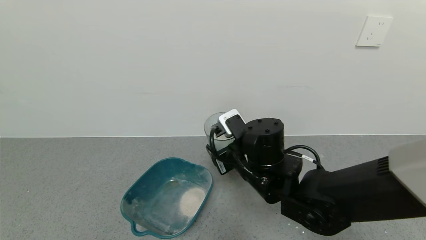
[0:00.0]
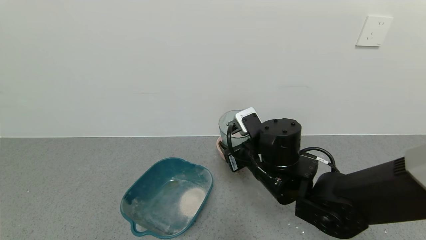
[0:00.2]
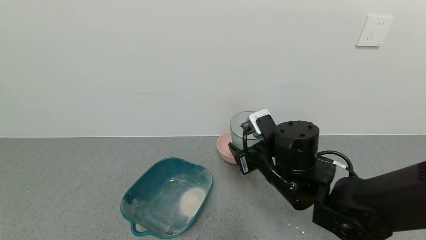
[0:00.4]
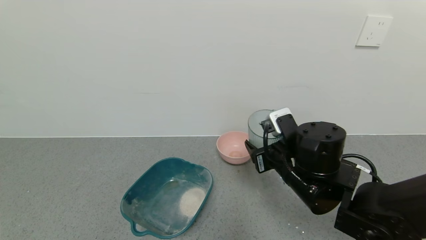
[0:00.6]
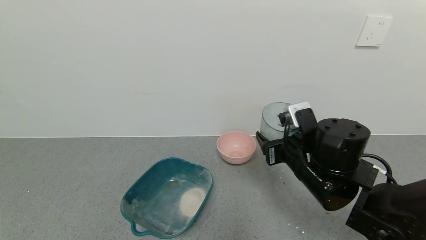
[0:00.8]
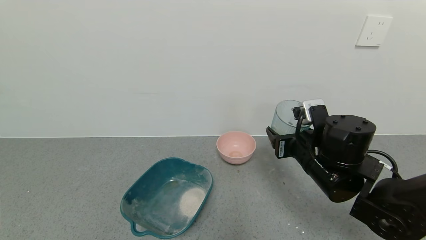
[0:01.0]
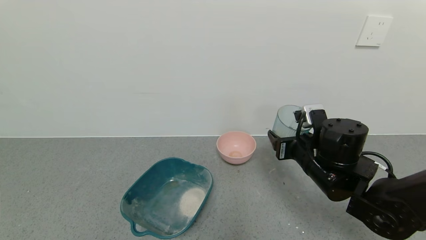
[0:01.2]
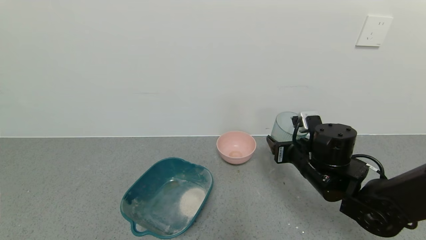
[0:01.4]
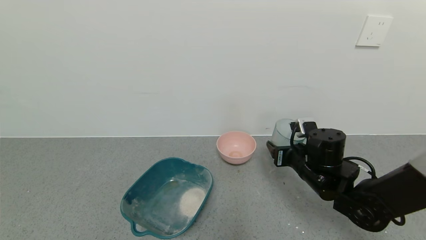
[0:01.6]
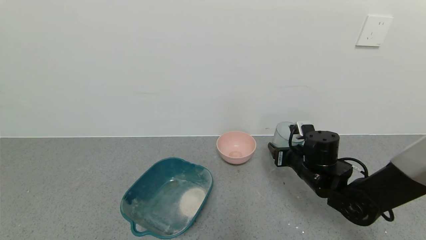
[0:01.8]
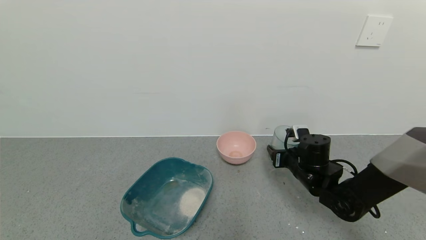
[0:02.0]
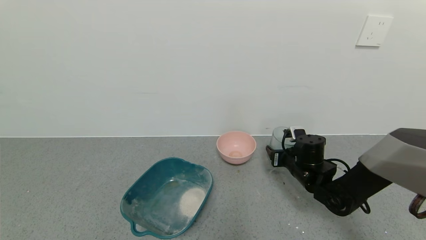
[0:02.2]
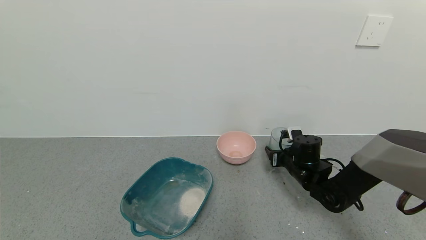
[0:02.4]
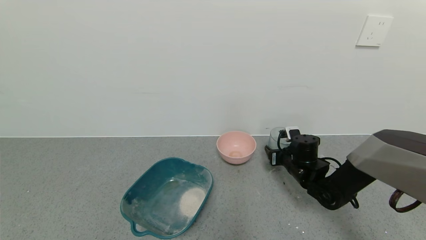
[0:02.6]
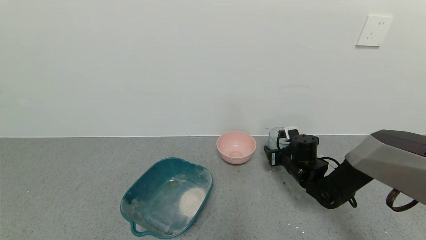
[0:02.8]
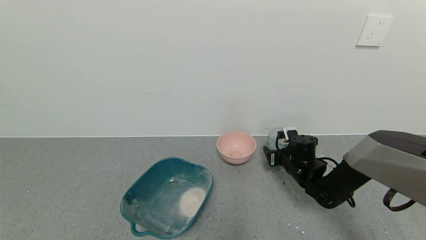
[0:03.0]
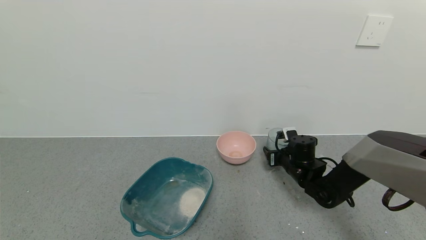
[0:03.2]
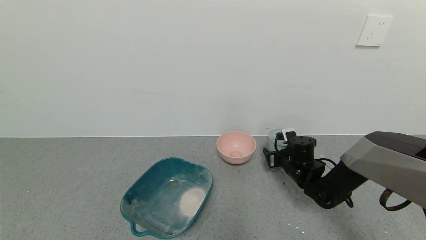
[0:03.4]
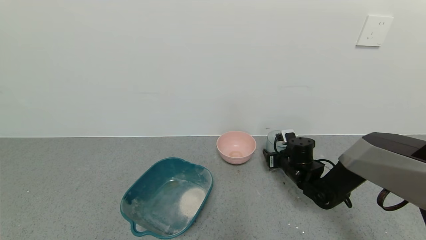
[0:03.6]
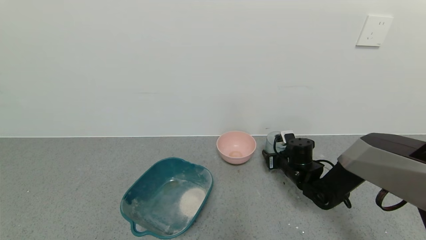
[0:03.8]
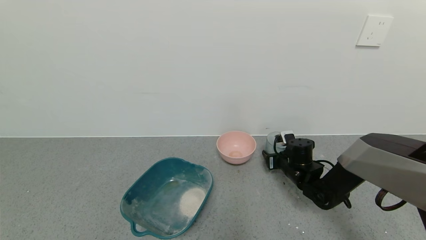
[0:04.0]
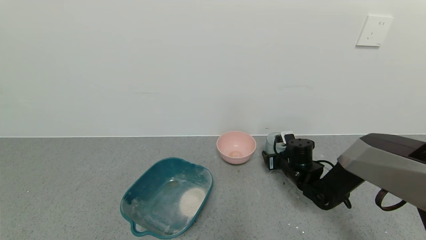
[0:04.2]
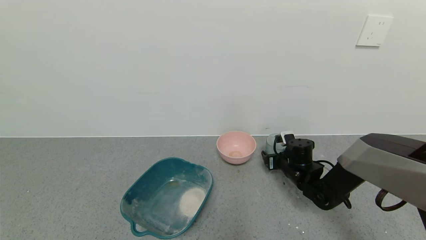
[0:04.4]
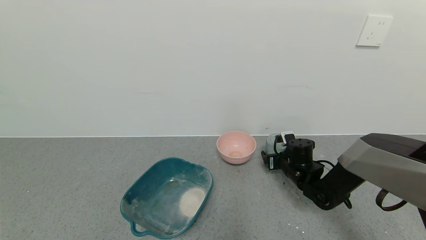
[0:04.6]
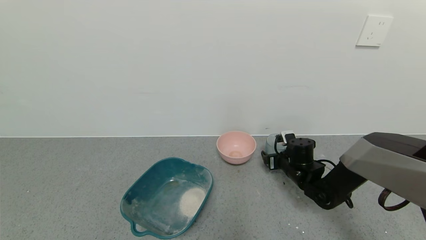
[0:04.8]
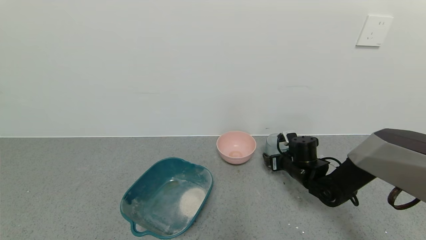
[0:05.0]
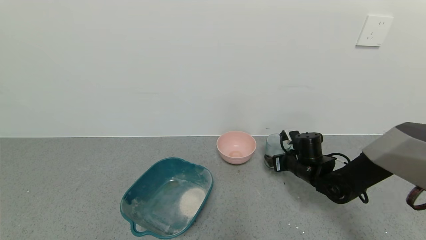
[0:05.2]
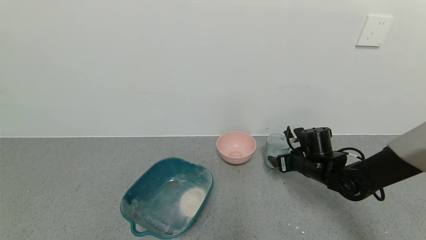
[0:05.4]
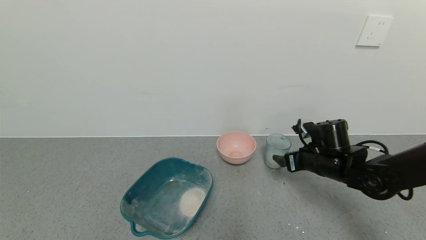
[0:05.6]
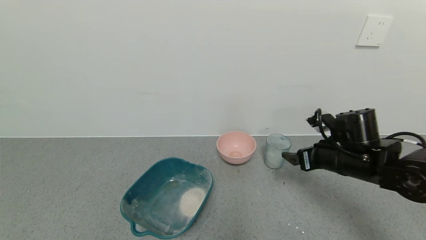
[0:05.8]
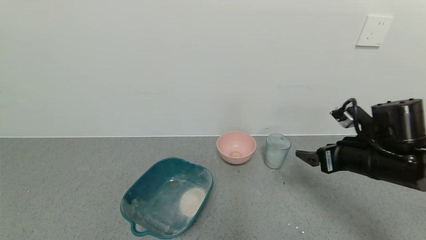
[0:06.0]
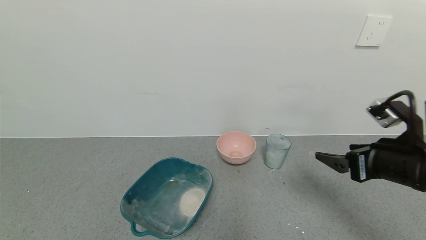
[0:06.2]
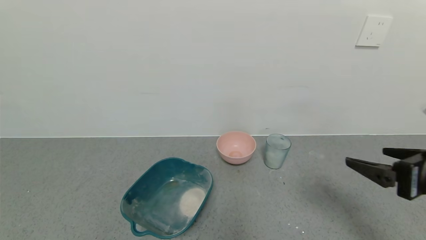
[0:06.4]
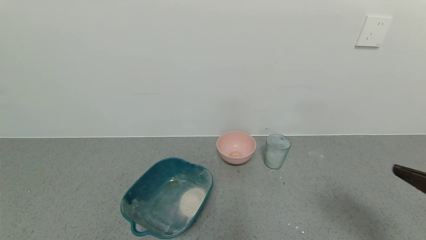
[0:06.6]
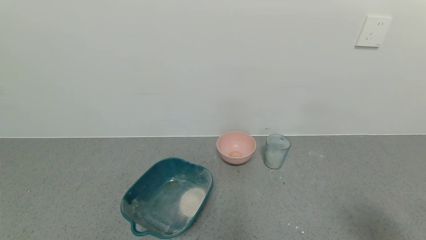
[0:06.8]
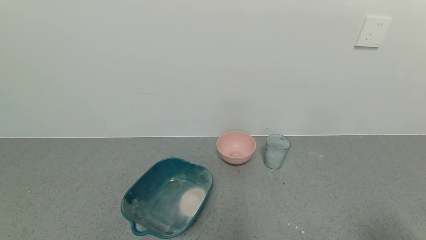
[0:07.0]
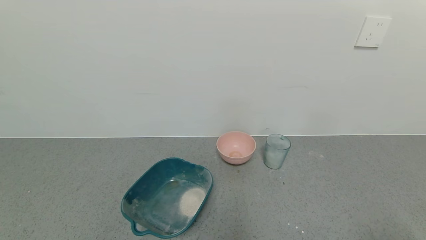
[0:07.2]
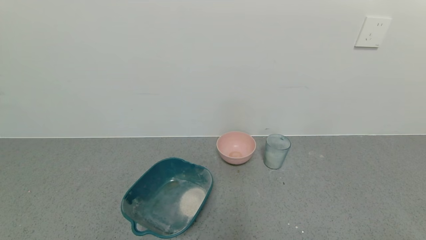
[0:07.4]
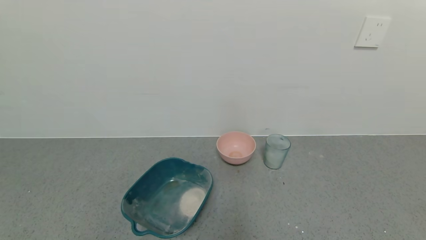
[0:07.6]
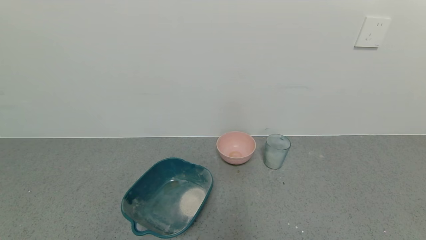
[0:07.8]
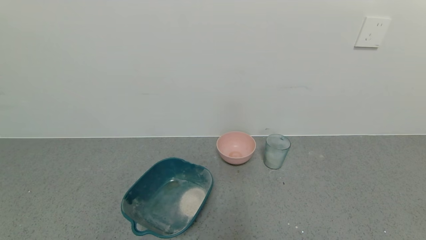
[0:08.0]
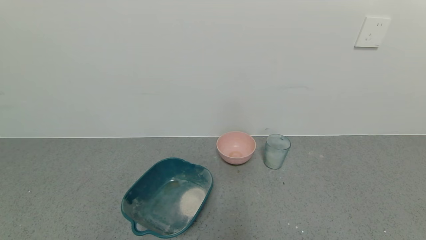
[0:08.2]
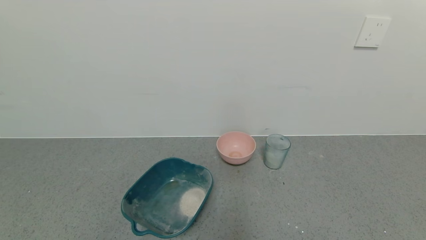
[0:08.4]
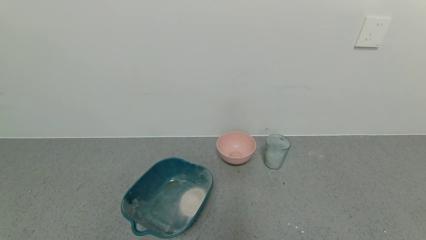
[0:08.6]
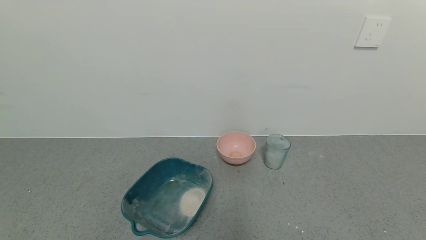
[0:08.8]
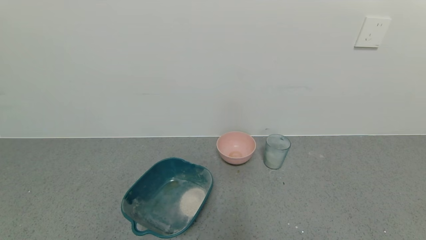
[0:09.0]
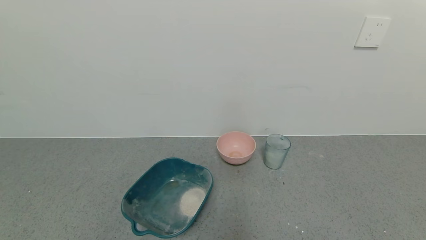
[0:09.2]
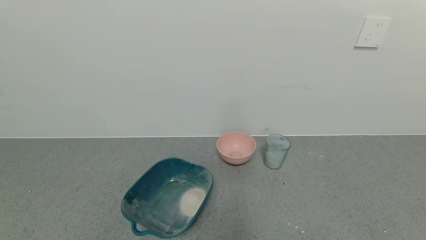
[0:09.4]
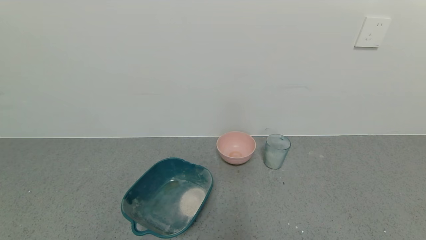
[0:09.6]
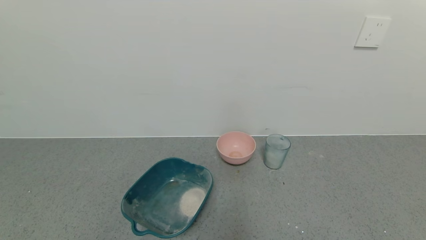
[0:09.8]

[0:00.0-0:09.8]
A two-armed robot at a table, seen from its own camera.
Task of the whole recording: use a gripper to pick up the cup and pour the powder into a bowl or tray.
Step, 0:00.0 to 0:05.6: Place the glass cup down with the right gripper.
0:00.0 to 0:01.4: The right gripper moves to the right, some 10 cm.
0:01.4 to 0:02.8: The right gripper travels forward and downward by roughly 15 cm.
0:02.8 to 0:04.2: There are only small adjustments of the grippers.
0:04.2 to 0:05.6: The right gripper shifts approximately 10 cm upward and backward, and opens up.
0:05.6 to 0:07.0: The right gripper travels backward and upward by approximately 35 cm.

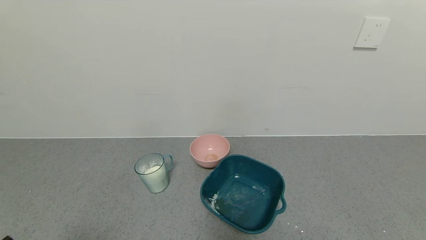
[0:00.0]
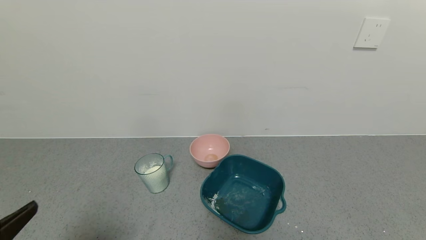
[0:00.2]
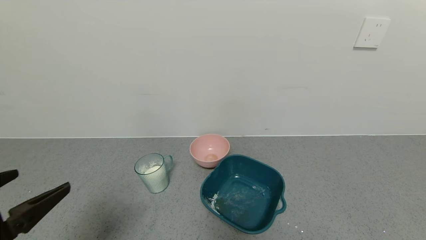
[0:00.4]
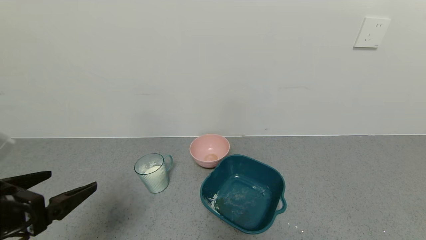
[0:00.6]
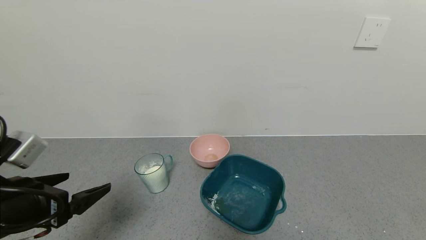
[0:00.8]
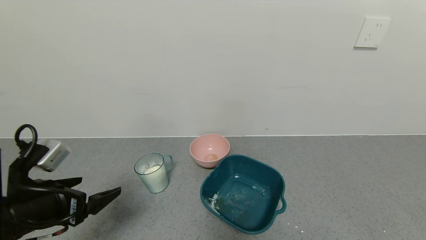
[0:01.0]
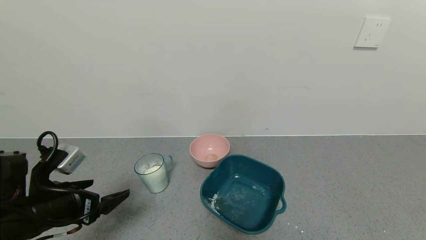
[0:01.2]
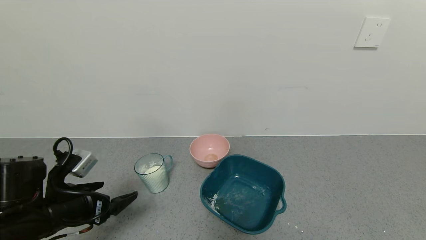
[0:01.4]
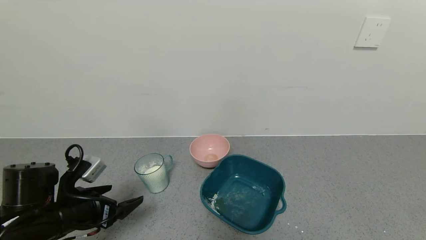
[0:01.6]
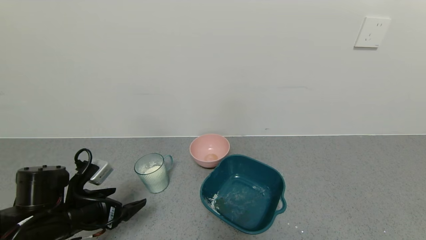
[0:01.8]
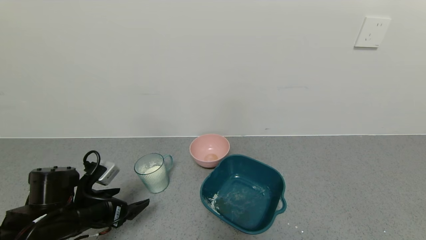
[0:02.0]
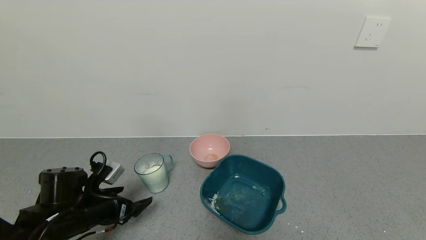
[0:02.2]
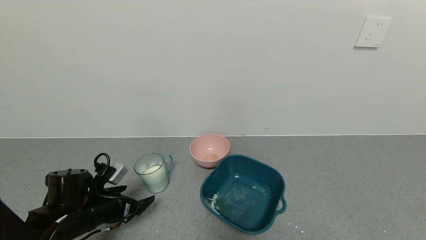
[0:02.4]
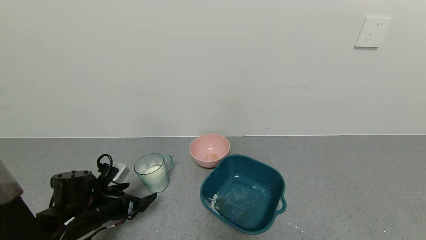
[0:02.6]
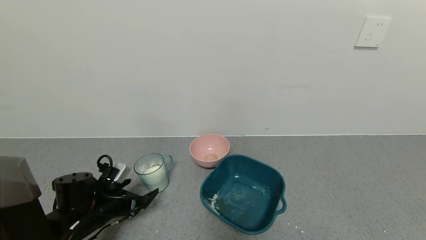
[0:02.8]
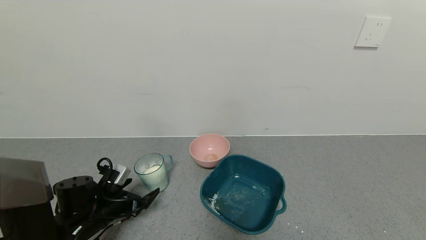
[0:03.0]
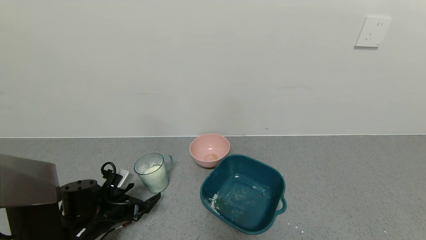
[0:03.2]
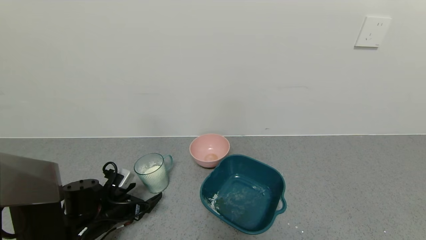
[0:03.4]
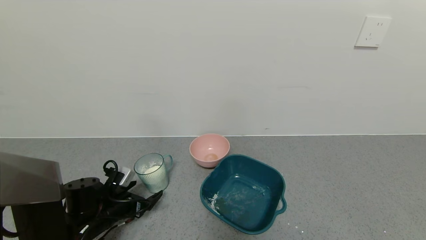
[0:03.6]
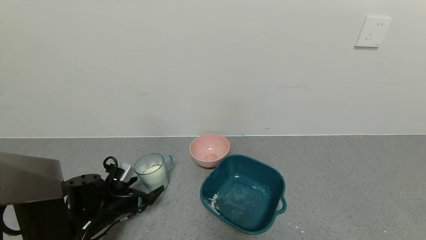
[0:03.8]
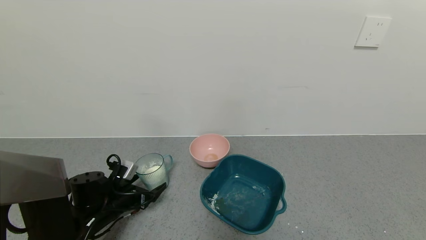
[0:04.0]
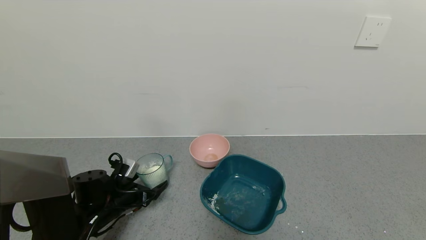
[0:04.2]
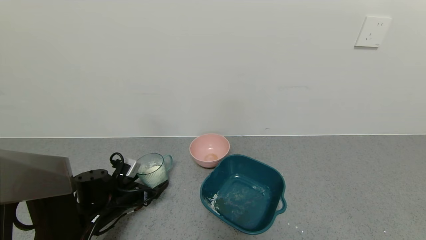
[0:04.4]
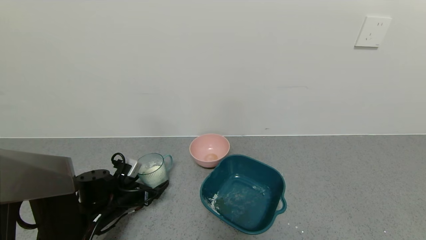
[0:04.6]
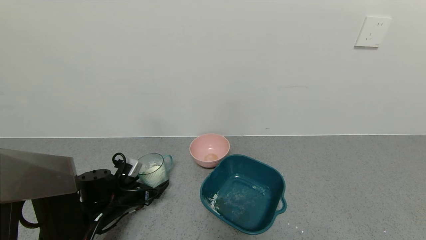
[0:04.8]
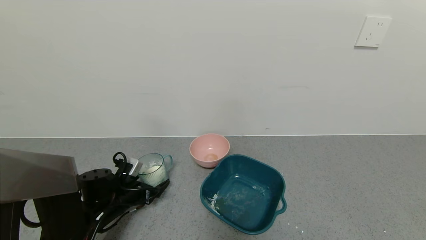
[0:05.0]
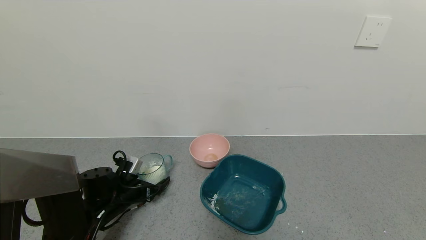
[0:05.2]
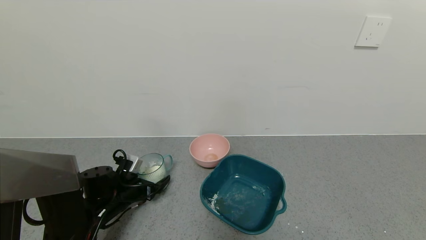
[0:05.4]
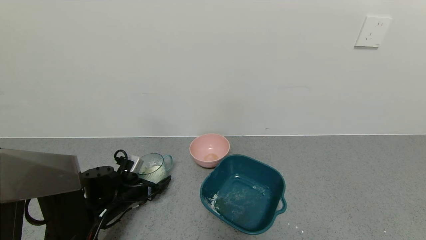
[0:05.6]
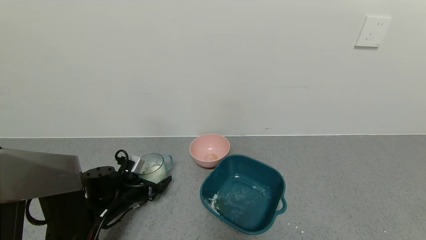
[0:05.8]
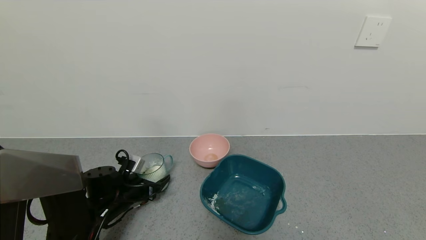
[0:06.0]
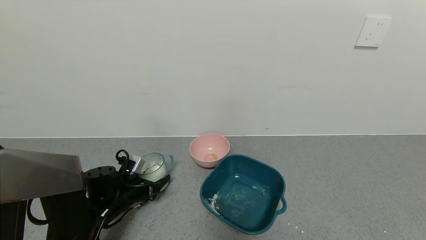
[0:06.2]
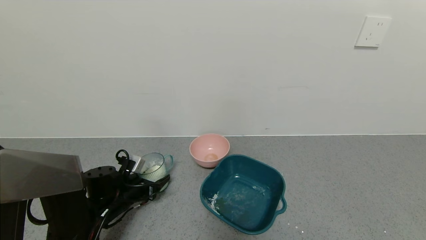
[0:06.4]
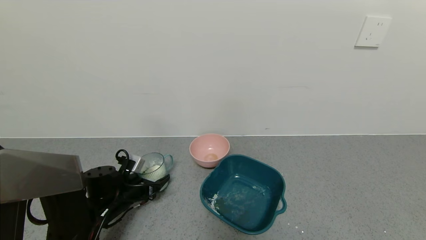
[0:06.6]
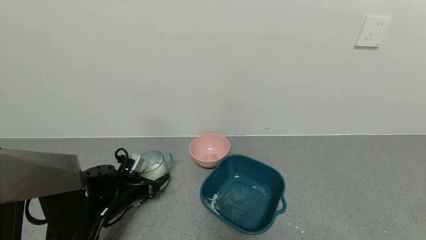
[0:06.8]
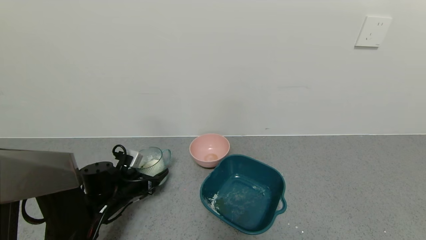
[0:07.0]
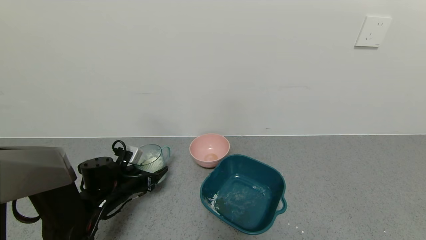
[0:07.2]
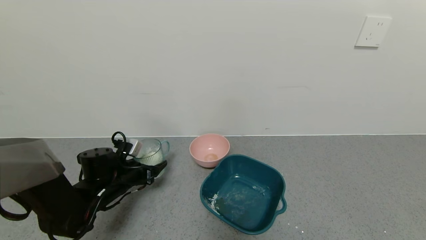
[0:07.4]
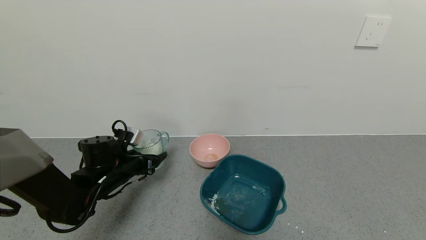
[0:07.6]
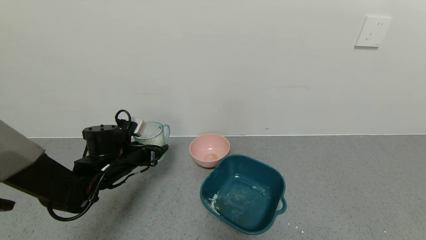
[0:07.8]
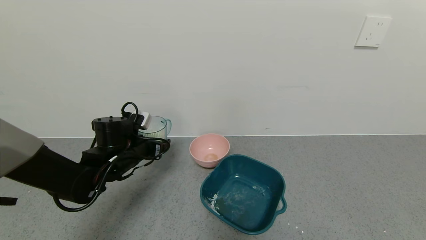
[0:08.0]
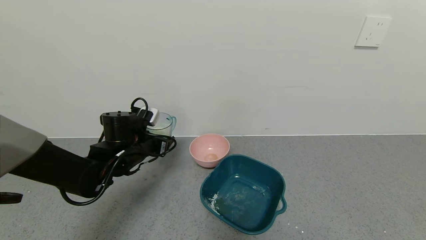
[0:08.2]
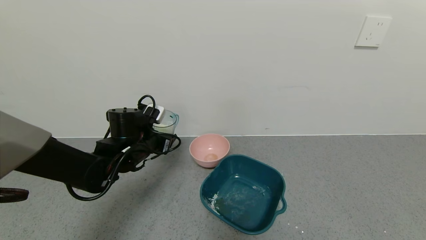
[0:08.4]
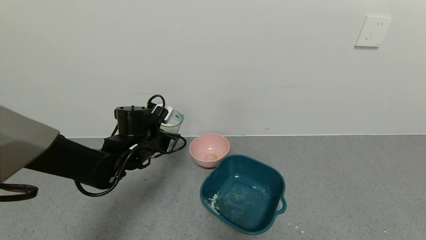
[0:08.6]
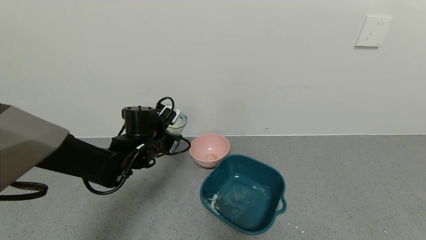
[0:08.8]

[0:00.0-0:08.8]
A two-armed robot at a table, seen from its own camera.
Task of the whole recording: use a gripper to pick up the cup and pour the powder into a bowl or tray.
Step, 0:00.0 to 0:06.2: Grasp the glass of powder with the left gripper.
0:00.0 to 0:01.4: The left gripper heads forward, covering some 20 cm.
0:01.4 to 0:03.0: The left gripper travels downward and forward by some 10 cm.
0:03.0 to 0:05.8: The grippers stay close to where they were, moving slightly.
0:05.8 to 0:07.4: The left gripper changes place by roughly 5 cm, and closes its fingers.
0:07.4 to 0:08.8: The left gripper heads to the right and upward, covering about 10 cm.
